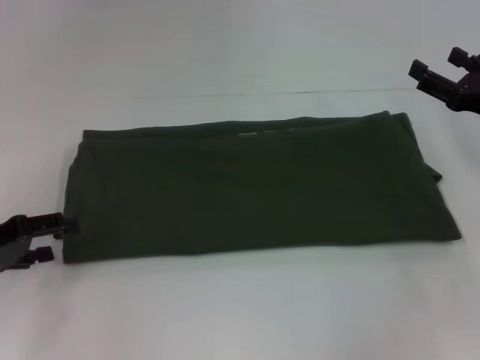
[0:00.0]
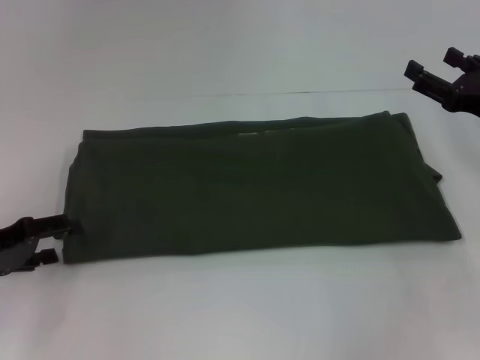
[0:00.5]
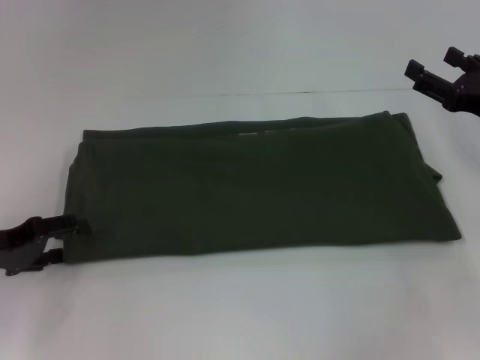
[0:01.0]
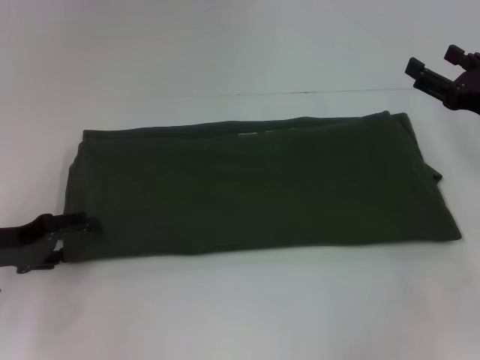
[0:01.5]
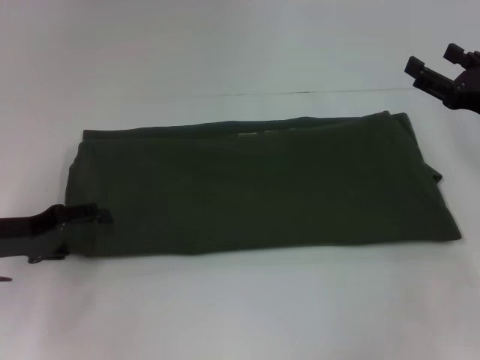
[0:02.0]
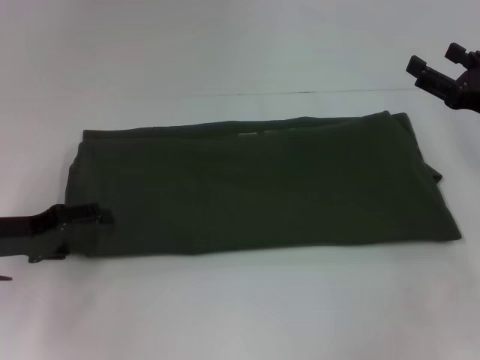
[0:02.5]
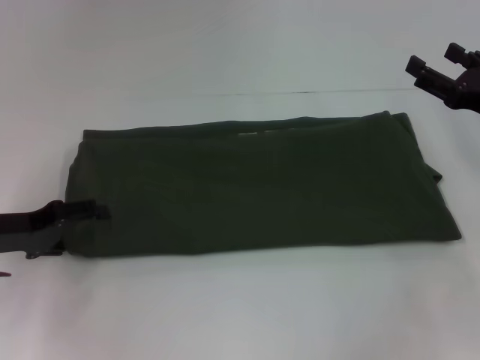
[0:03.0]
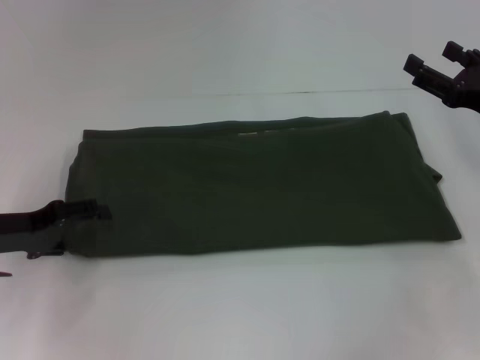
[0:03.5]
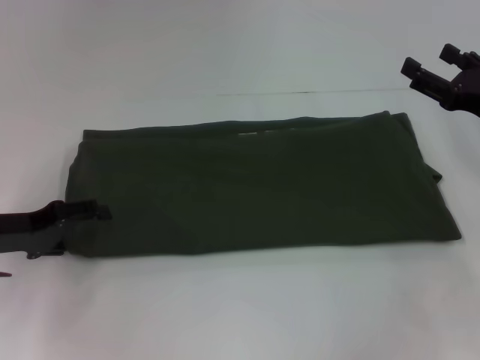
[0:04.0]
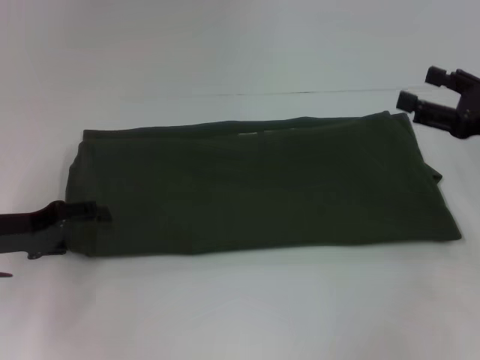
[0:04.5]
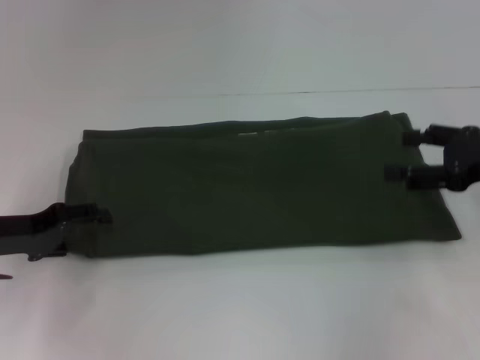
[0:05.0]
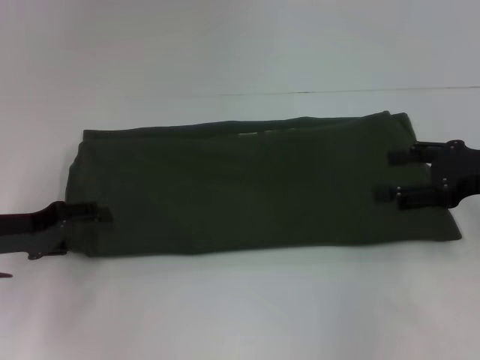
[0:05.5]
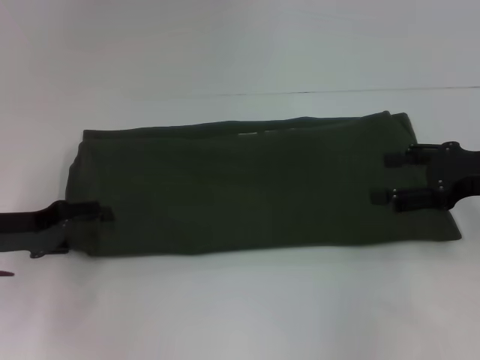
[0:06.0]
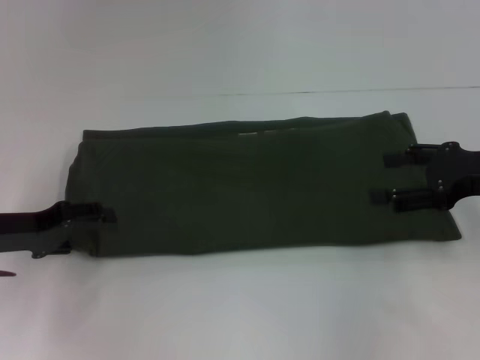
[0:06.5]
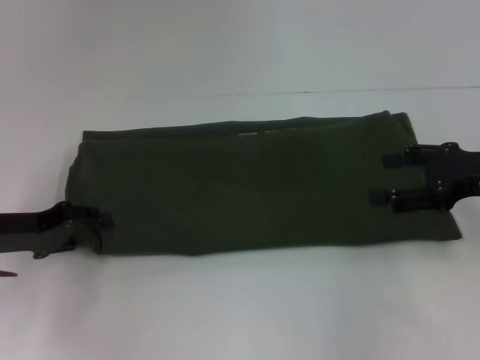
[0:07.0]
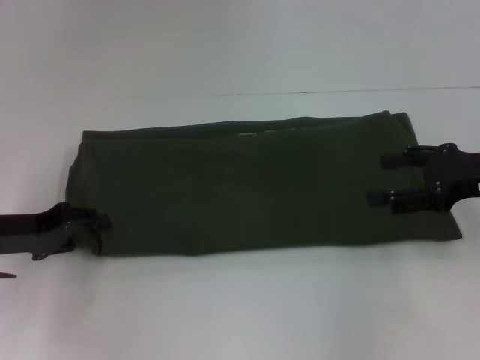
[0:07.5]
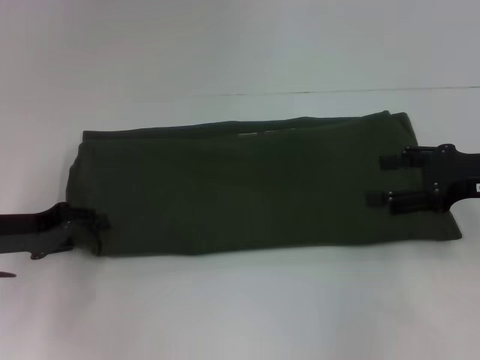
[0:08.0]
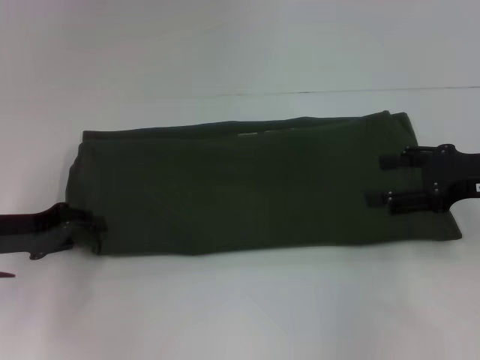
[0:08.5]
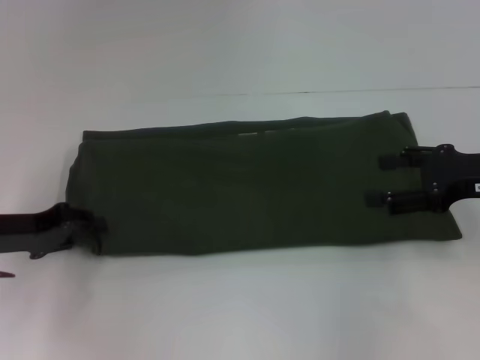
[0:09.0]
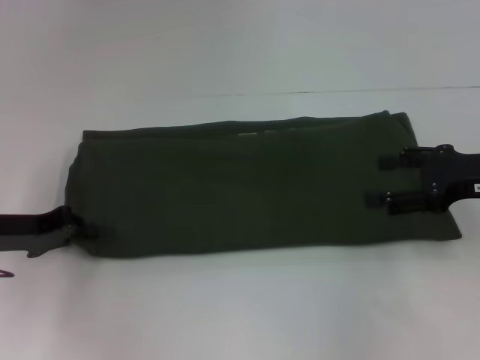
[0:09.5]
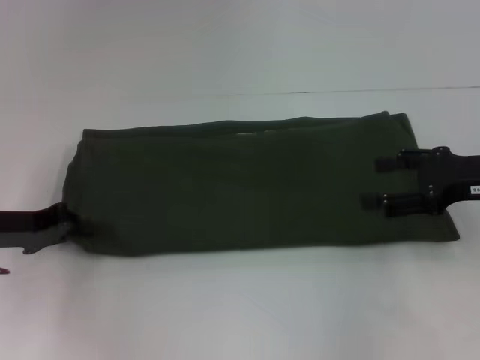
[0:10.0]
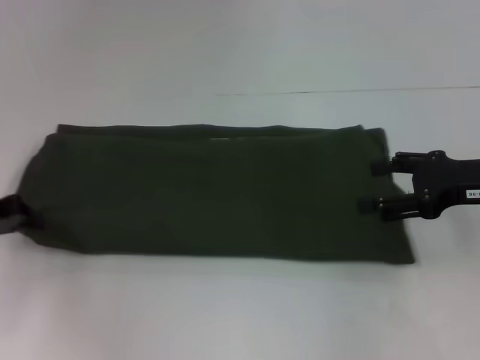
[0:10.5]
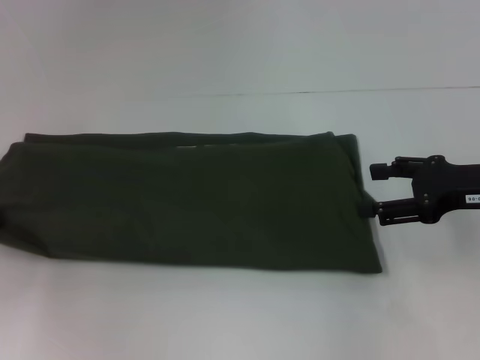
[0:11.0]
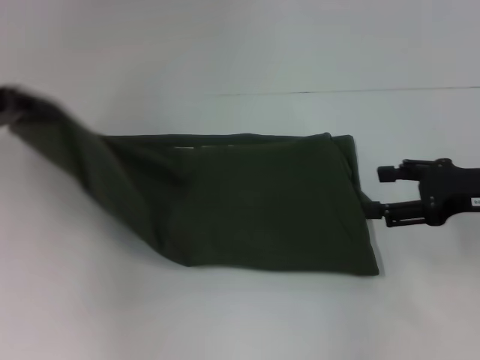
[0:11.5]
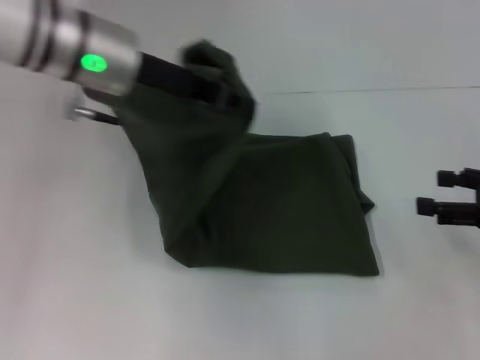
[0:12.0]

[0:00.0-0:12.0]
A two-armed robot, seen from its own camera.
0:00.0 to 0:02.0: There are only small adjustments of the grippers.
0:02.0 to 0:04.0: Both grippers stay about where they are.
0:06.0 to 0:08.0: Both grippers stay put.
0:08.0 to 0:10.0: The left gripper closes up.
0:10.0 to 0:12.0: The left gripper heads to the right, upward and forward, covering about 25 cm; the right gripper moves to the right, approximately 5 cm.

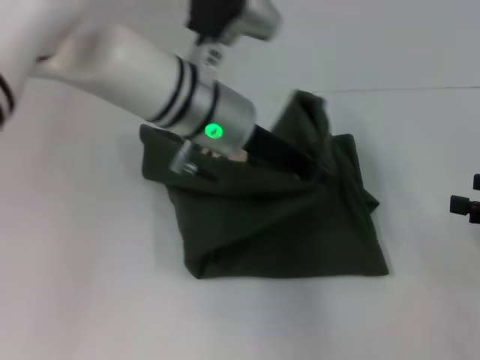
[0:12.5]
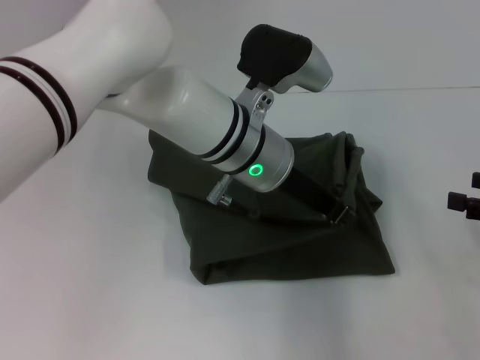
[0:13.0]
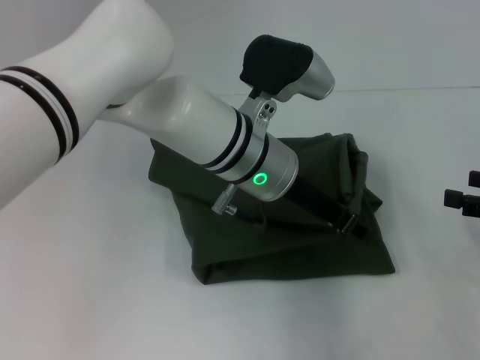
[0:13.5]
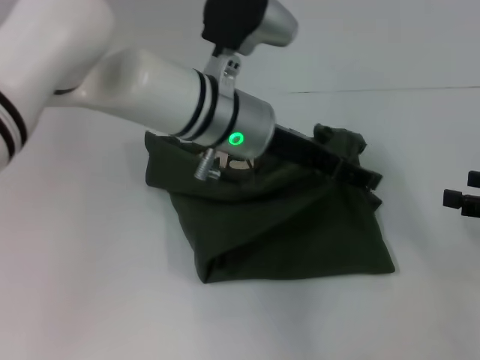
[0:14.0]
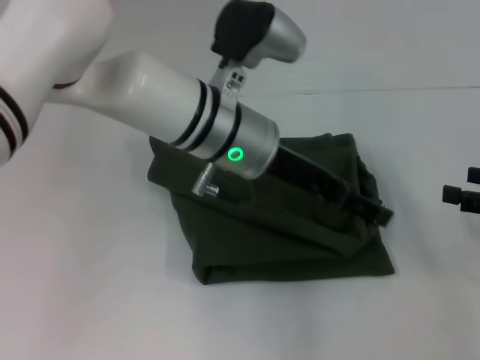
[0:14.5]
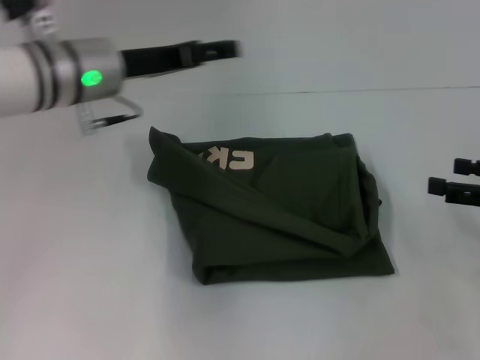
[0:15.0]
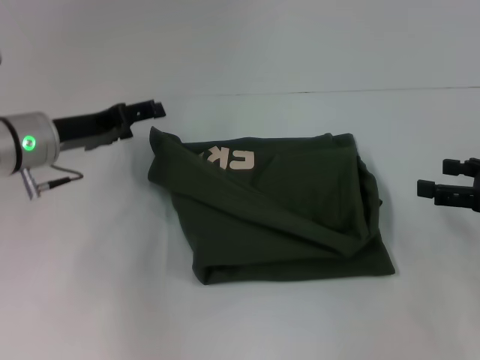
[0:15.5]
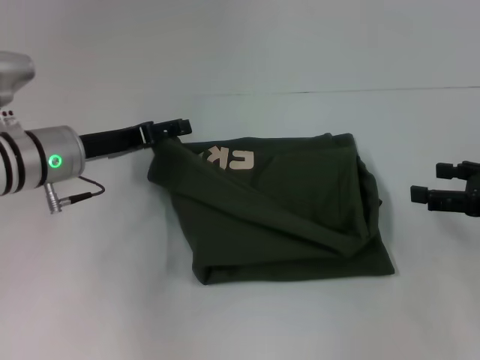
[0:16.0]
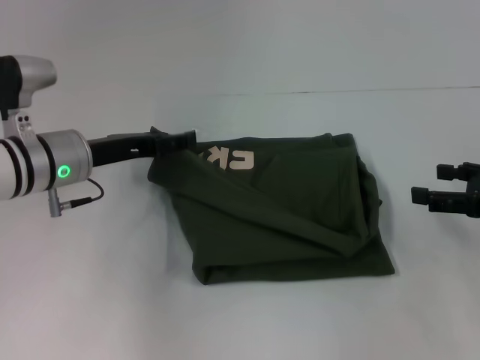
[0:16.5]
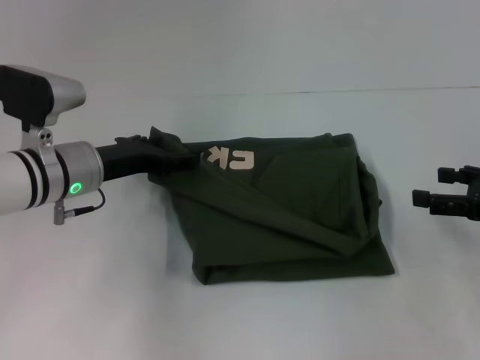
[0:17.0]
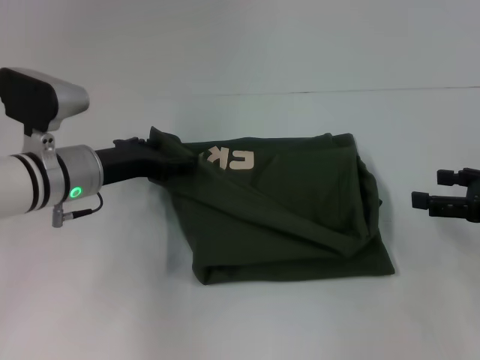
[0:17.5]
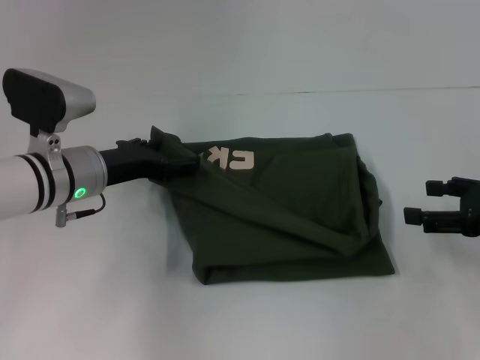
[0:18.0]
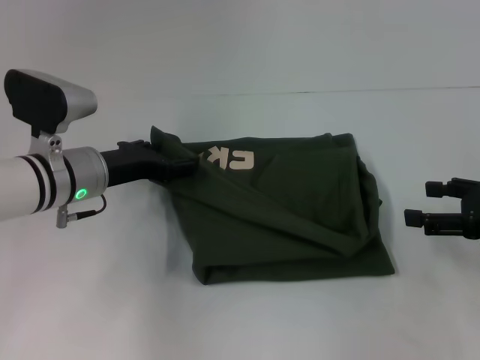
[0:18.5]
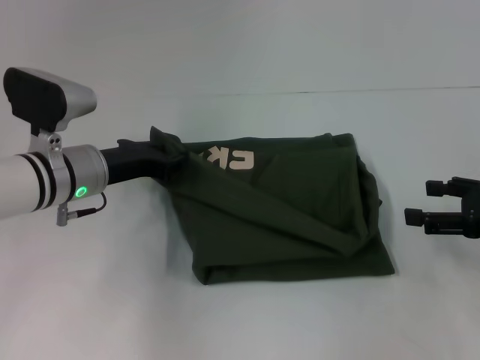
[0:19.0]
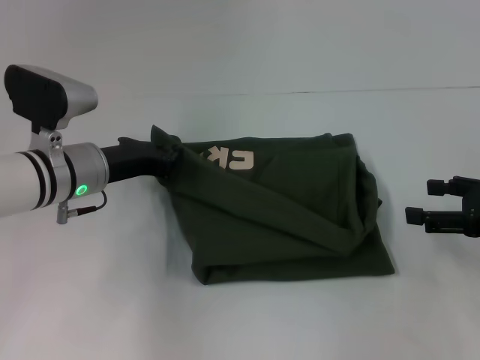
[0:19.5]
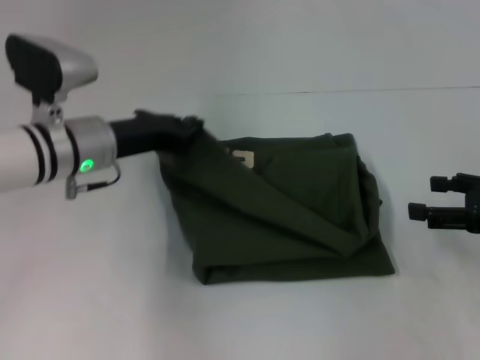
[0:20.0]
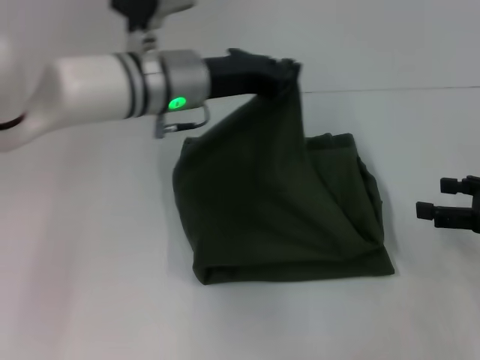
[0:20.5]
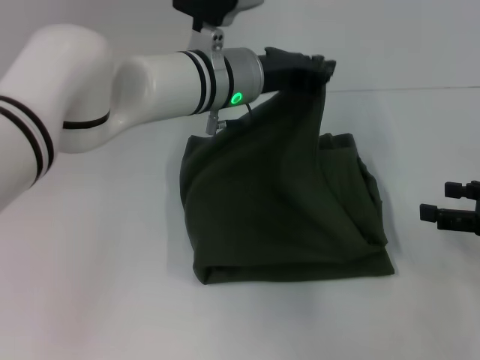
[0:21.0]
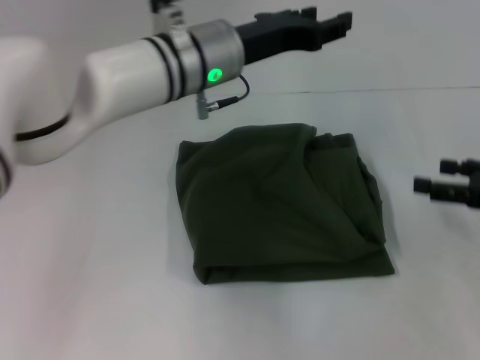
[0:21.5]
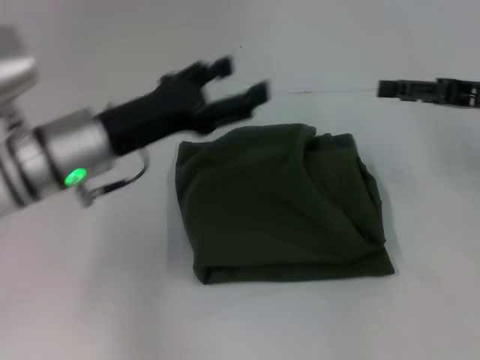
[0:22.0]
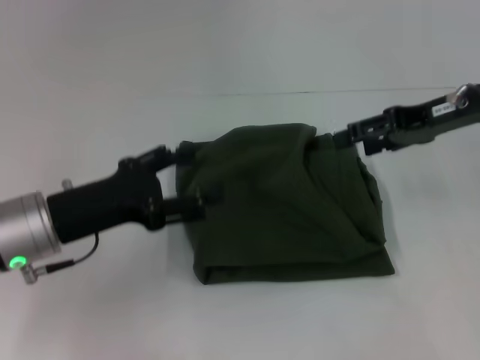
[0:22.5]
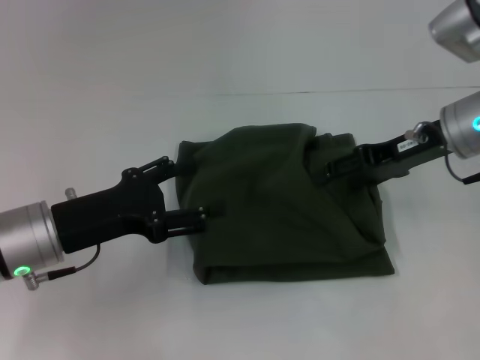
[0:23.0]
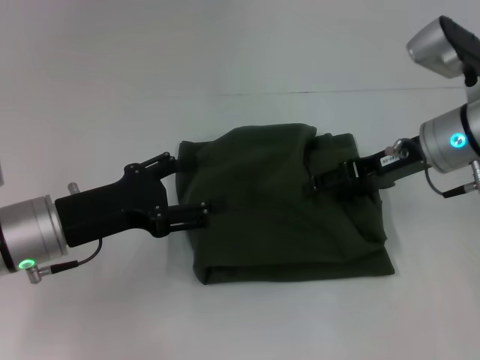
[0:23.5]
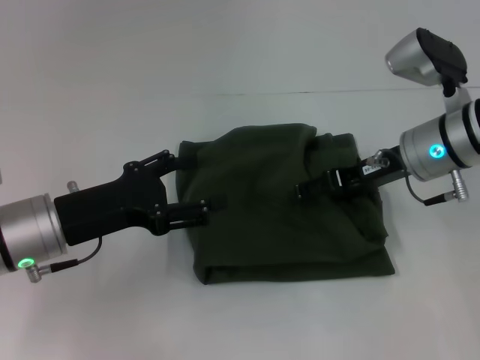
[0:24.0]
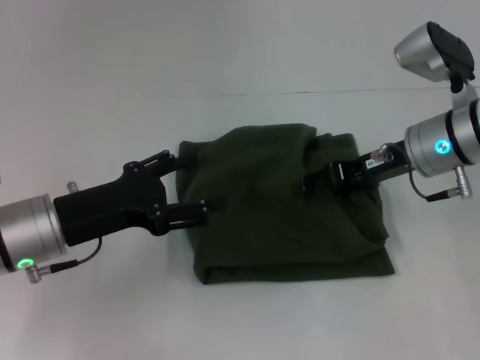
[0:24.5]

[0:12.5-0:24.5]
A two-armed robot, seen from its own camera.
0:12.5 to 0:14.5: The left gripper opens up.
0:14.5 to 0:16.5: The left gripper moves to the left and downward, approximately 20 cm.
0:16.5 to 0:18.5: The grippers move only a little.
0:18.5 to 0:20.5: The left gripper is displaced to the right and upward by roughly 15 cm, and closes up.
0:20.5 to 0:22.5: The right gripper heads forward, upward and to the left, covering about 15 cm. The left gripper goes approximately 20 cm to the left, backward and downward, and opens up.
0:22.5 to 0:24.5: The right gripper heads downward and to the left, covering roughly 10 cm.

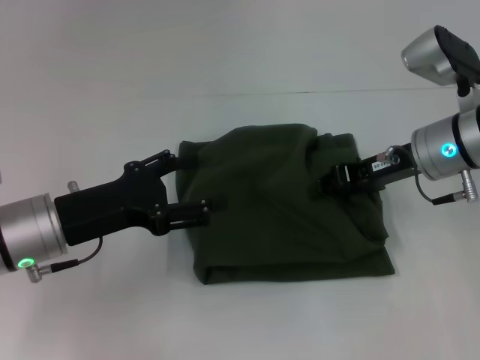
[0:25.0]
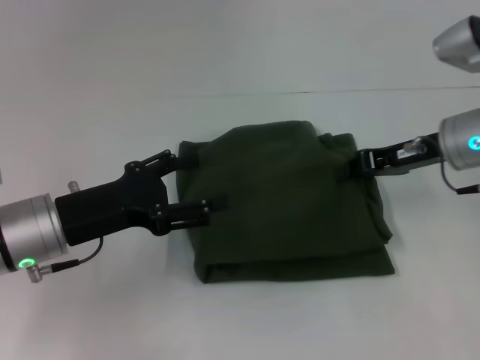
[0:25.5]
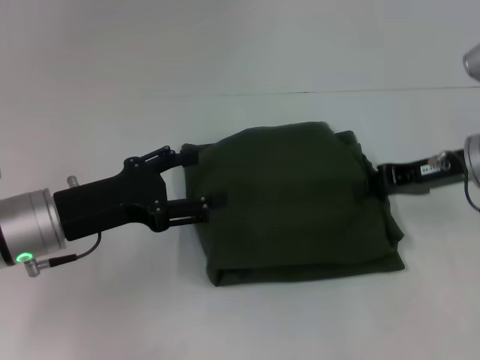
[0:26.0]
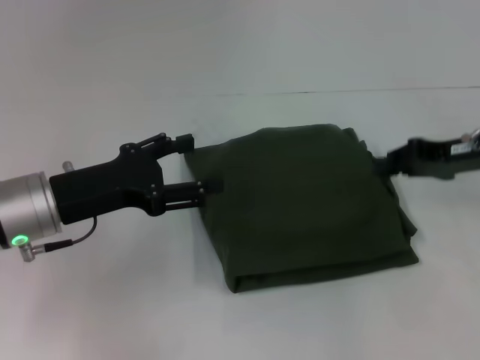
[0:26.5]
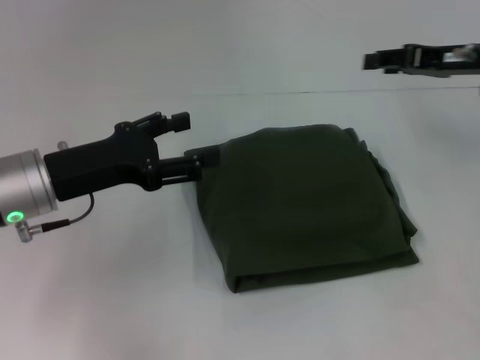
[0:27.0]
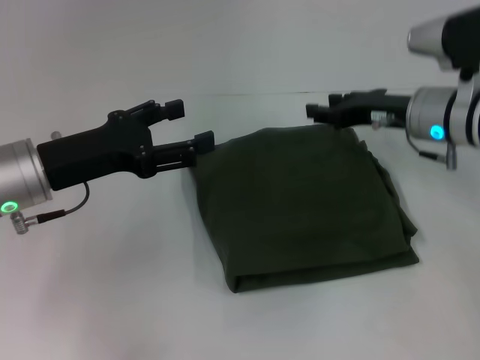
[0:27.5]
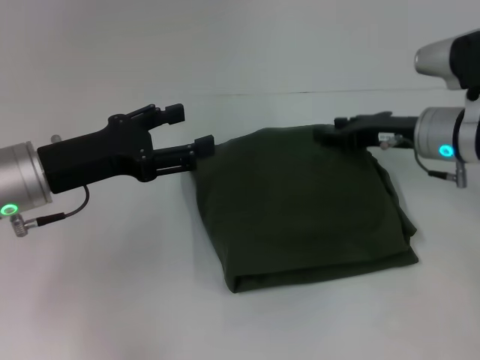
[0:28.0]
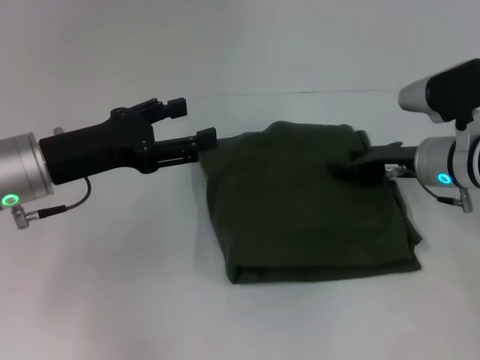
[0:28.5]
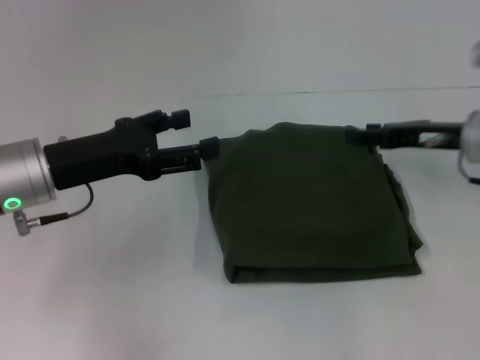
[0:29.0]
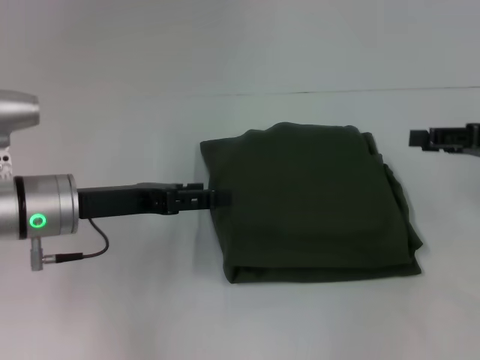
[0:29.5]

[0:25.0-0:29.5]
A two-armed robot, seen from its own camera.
0:25.0 to 0:27.0: The right gripper shifts about 10 cm to the right and upward, and closes and opens again.
0:27.0 to 0:29.5: The right gripper goes roughly 10 cm backward and to the right.
